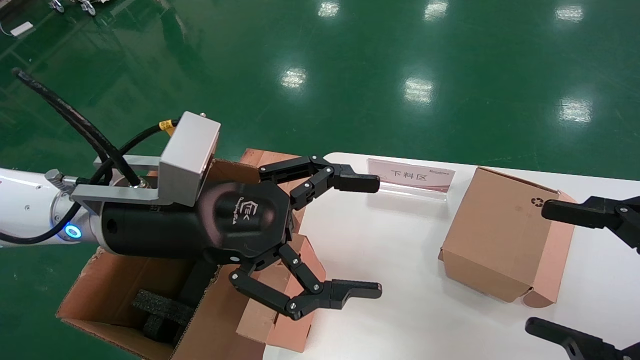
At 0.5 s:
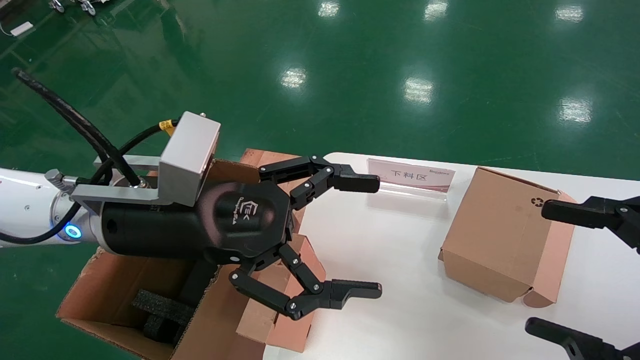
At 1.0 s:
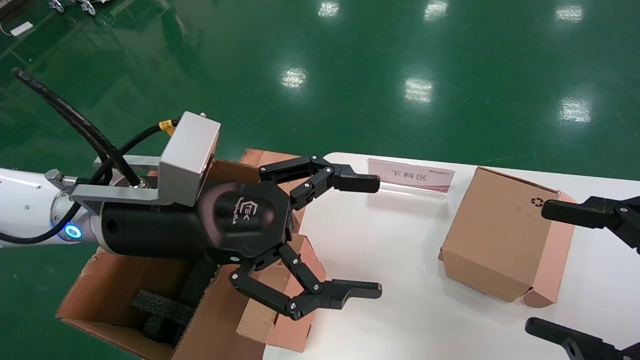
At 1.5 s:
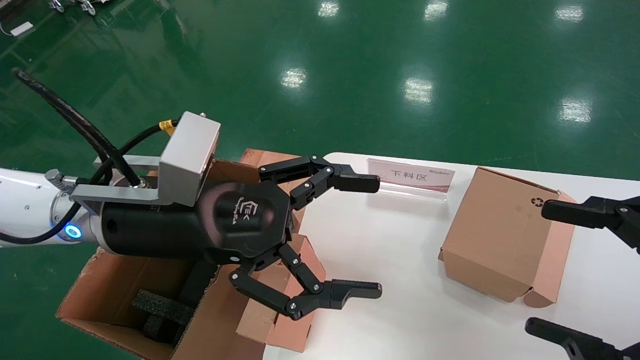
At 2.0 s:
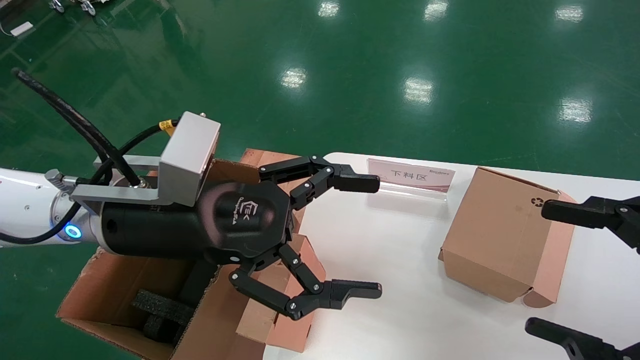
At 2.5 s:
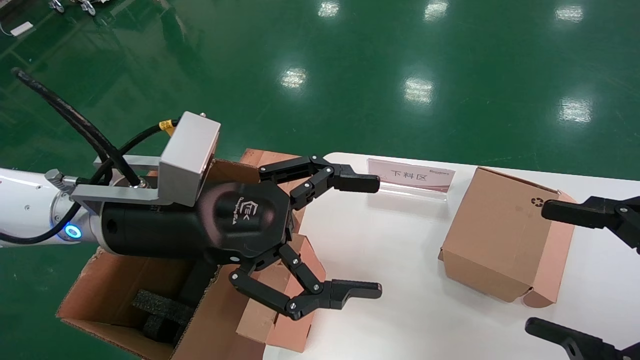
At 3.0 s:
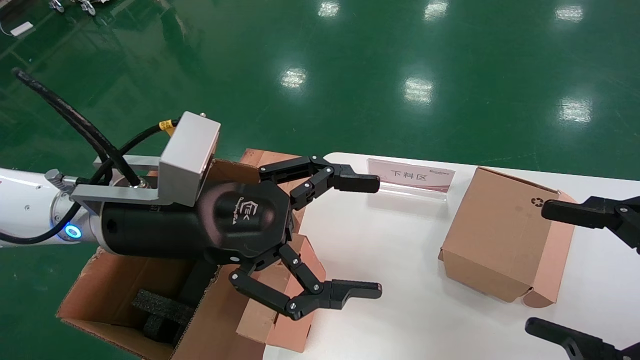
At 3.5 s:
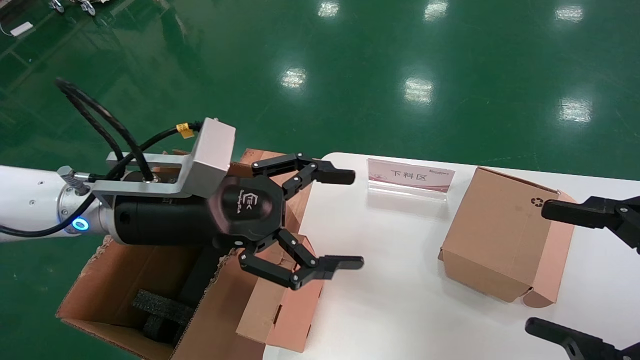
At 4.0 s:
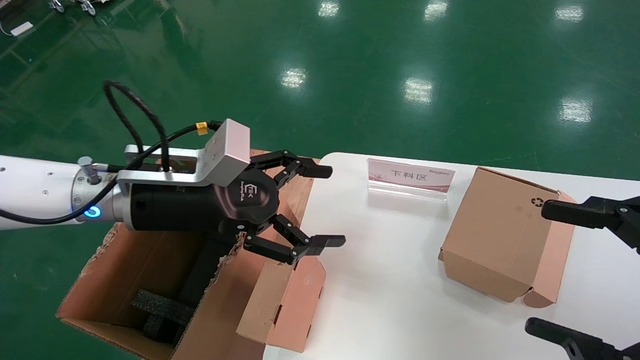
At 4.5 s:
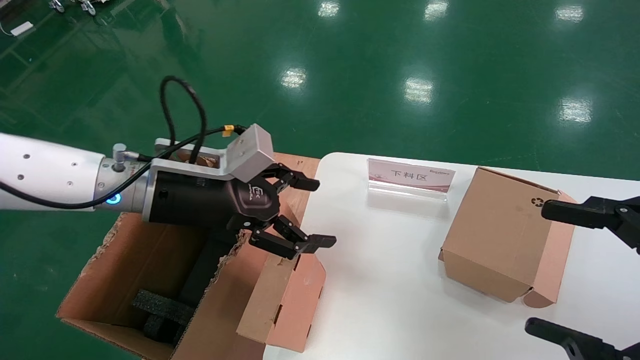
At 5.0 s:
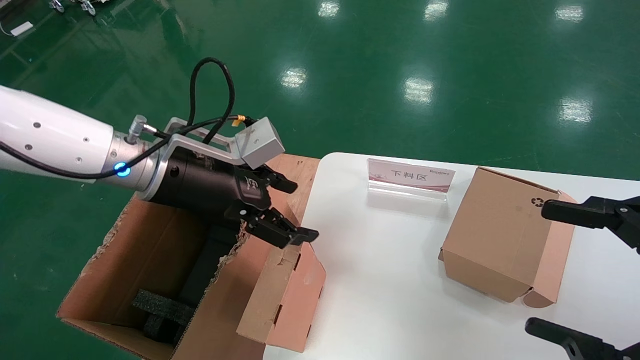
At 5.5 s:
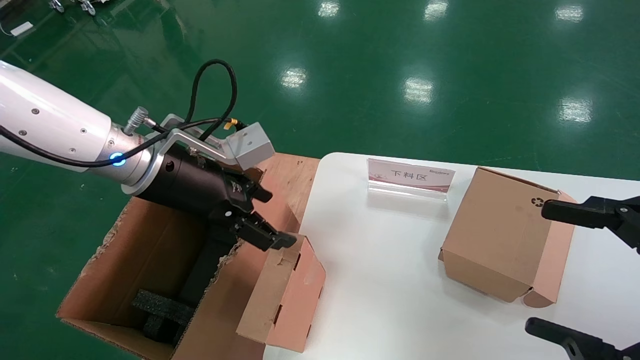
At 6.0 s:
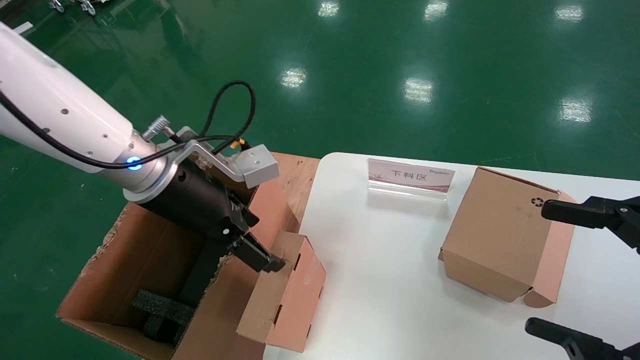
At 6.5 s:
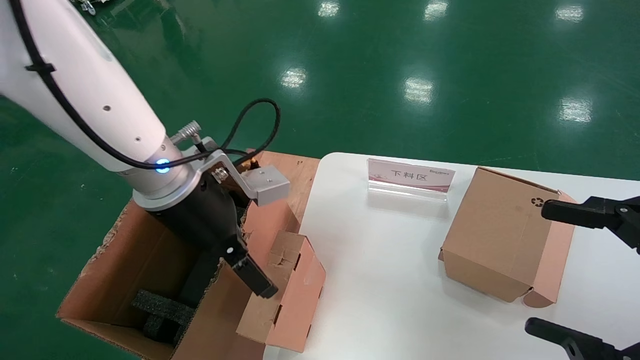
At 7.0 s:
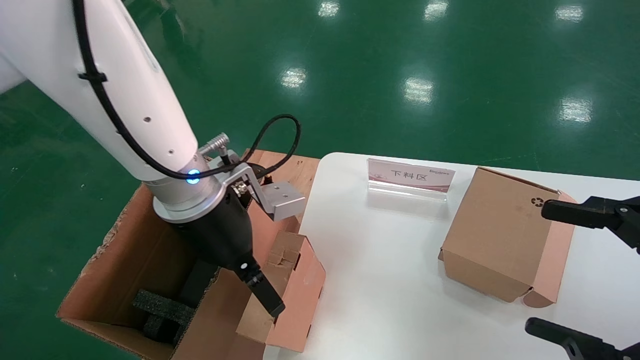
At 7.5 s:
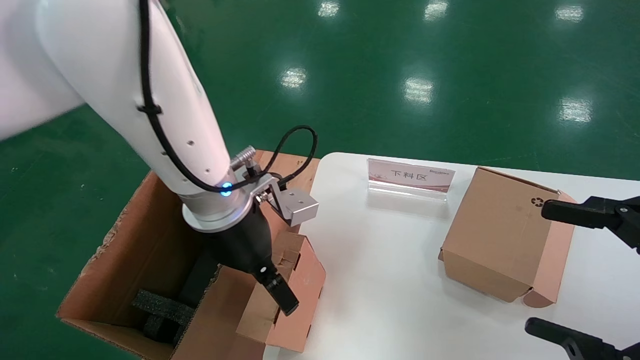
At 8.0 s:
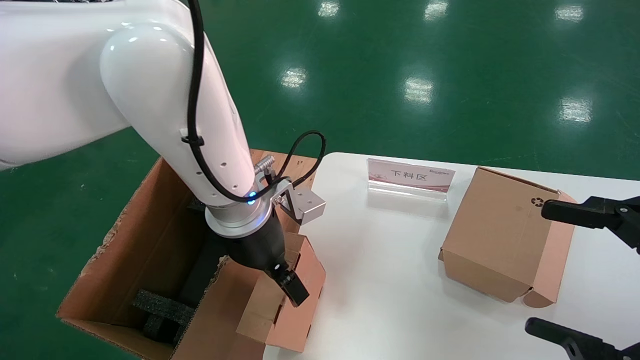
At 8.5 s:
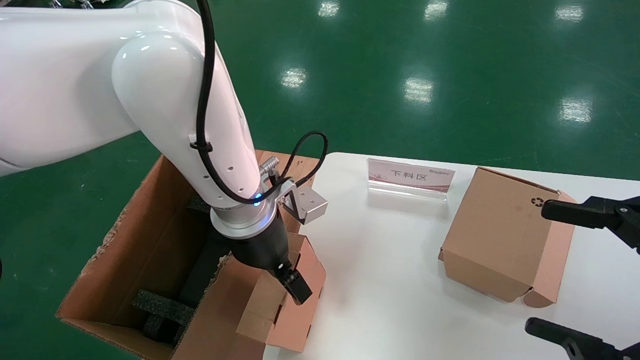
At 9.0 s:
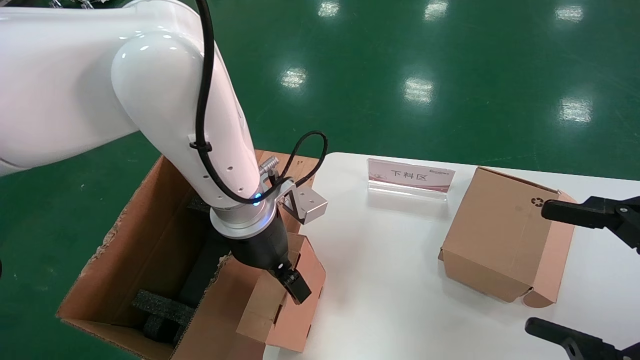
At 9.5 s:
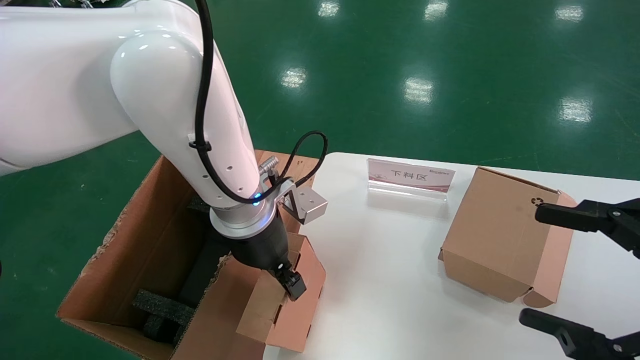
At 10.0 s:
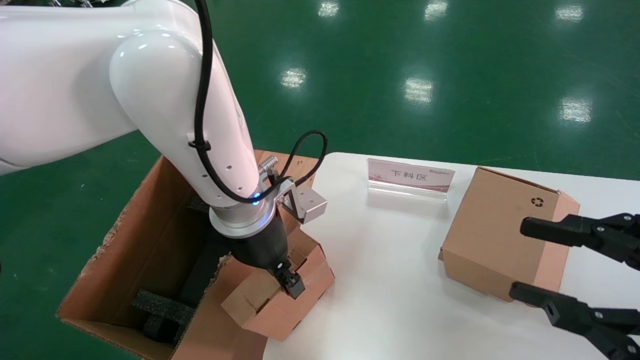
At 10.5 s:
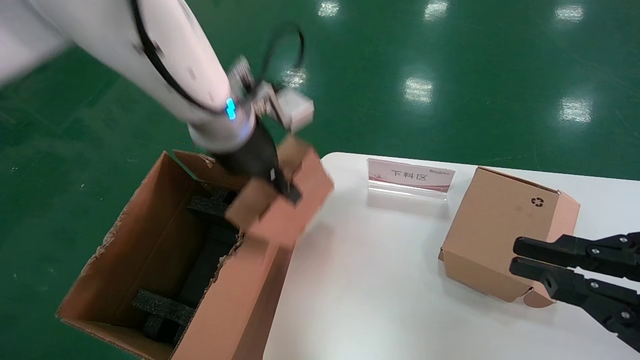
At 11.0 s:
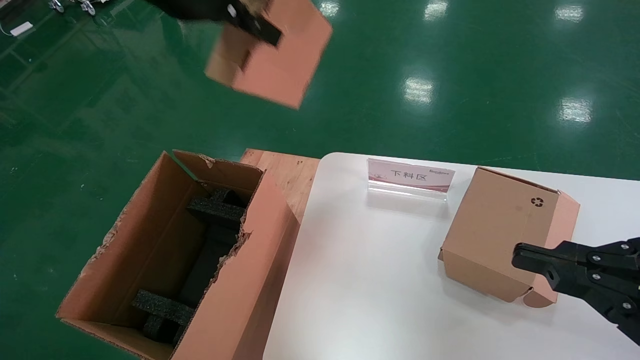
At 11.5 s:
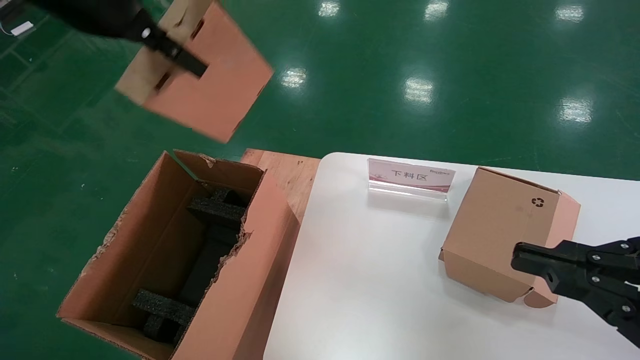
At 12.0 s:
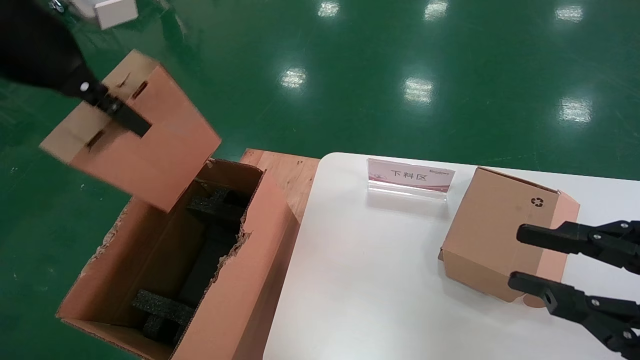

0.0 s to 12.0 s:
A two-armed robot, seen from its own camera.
Task of the whole recording: put the box on the table into the big box.
Step, 0.0 to 9.5 s: Grasp the paper box.
0.0 to 2.0 s: Both grippers stay put.
2.0 to 4.0 s: The left gripper shifts by about 5 cm.
6.0 to 8.0 s: The left gripper heads to the right, covering roughly 10 cm.
8.0 to 10.0 s: The left gripper closes.
10.0 to 12.0 s: The right gripper closes its fingers; the left gripper shifts about 25 cm upward, to the left and backward.

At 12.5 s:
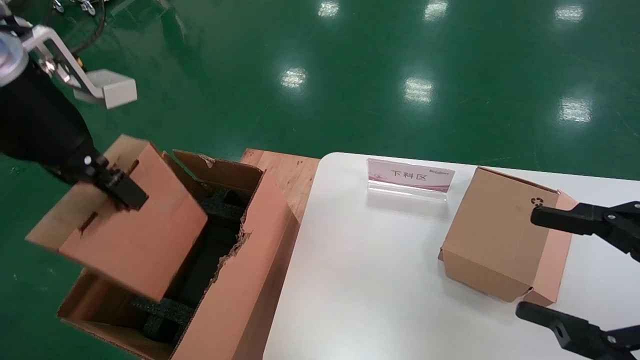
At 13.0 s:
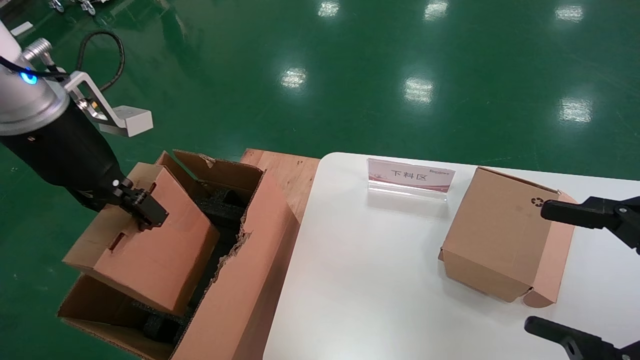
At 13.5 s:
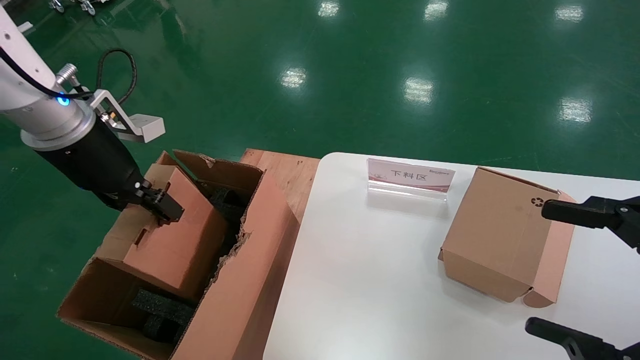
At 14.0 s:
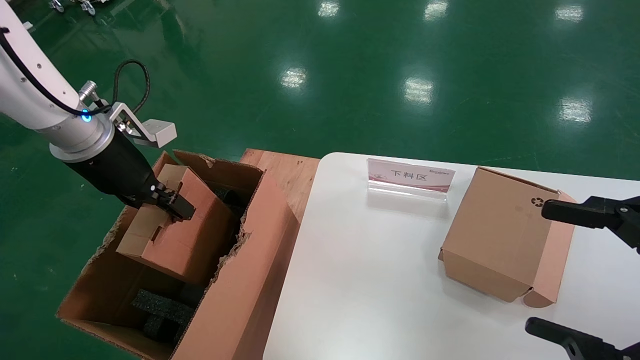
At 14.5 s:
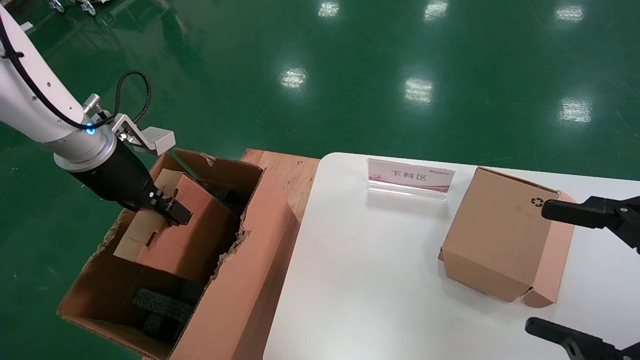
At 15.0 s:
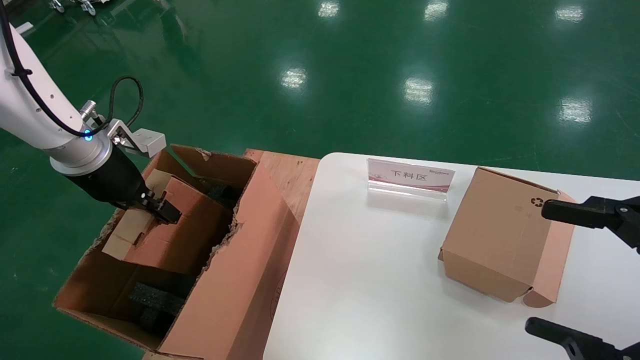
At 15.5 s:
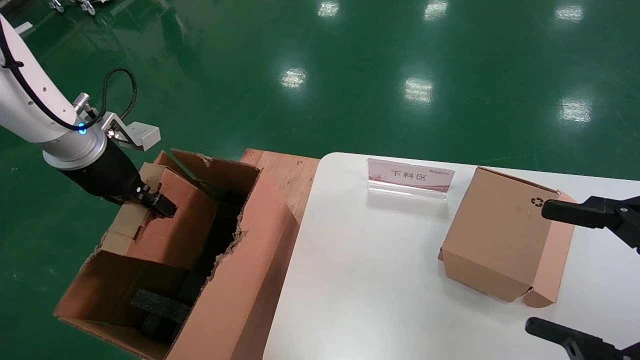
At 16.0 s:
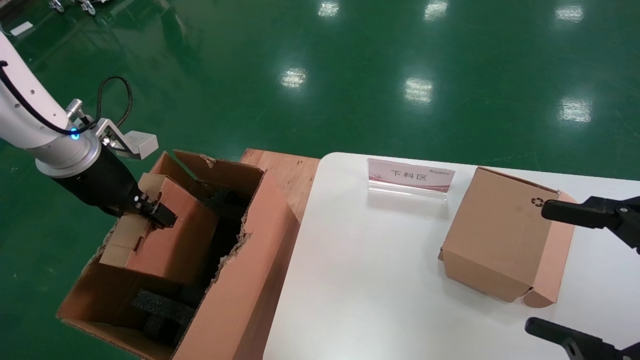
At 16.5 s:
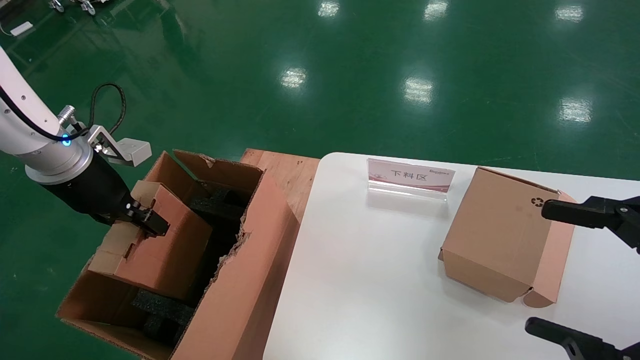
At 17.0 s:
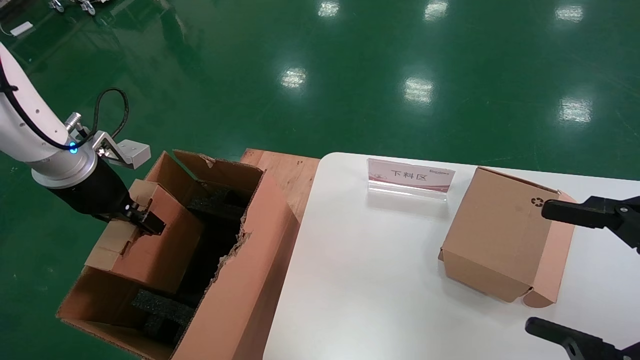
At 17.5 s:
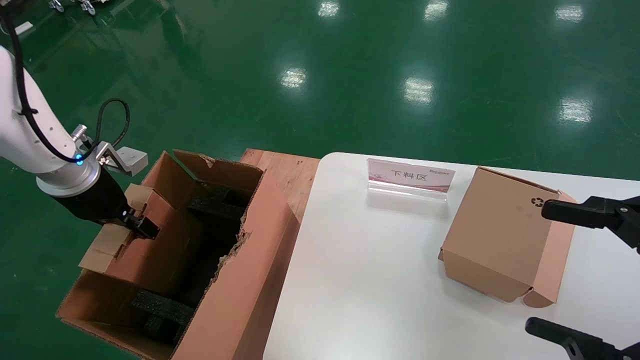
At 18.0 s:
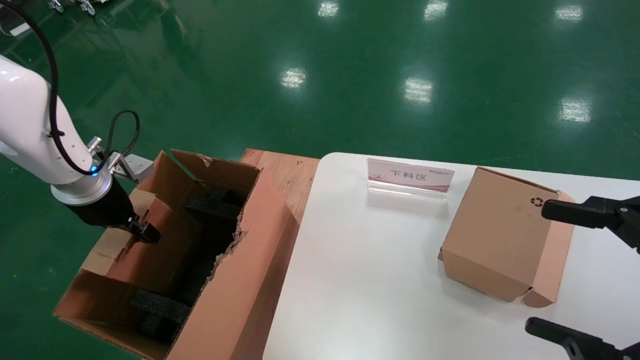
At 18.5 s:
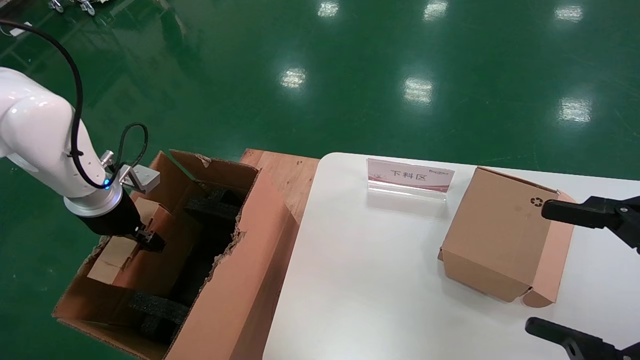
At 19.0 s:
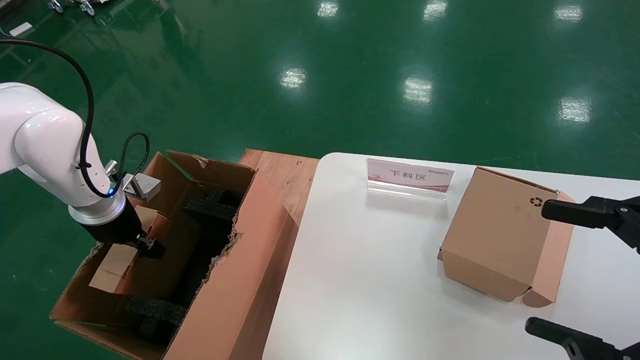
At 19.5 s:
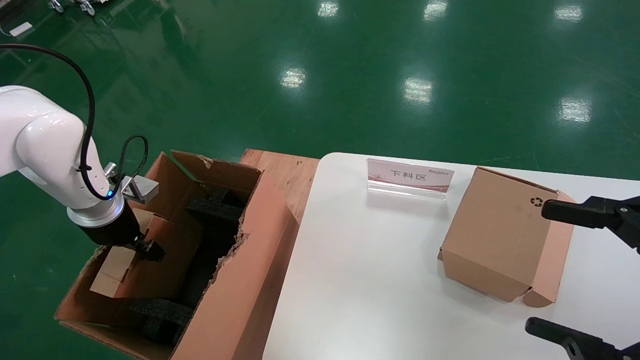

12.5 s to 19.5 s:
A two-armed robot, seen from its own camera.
Task of the whole recording: put the box on the table into the big box.
Step, 12.5 to 19.5 s: Place the paper box in the another big box.
12.5 to 14.5 s: The left gripper heads downward, forward and to the left, covering approximately 15 cm, while the right gripper opens.
14.5 to 17.5 s: The grippers stay close to where they were, moving slightly.
17.5 to 19.5 s: The left gripper goes about 5 cm downward.
